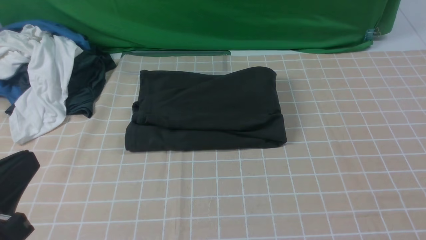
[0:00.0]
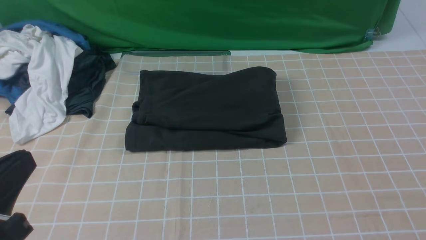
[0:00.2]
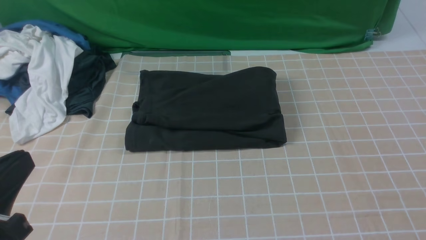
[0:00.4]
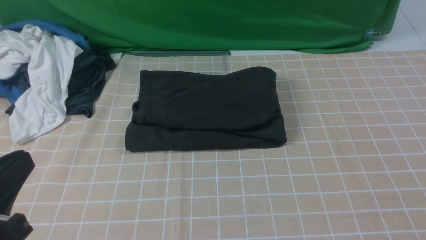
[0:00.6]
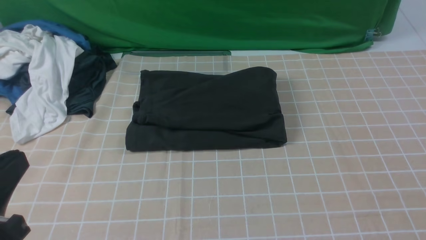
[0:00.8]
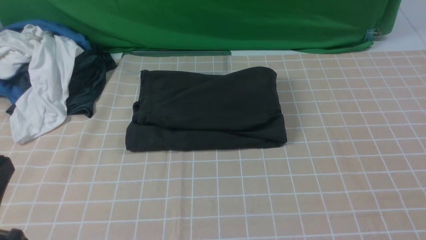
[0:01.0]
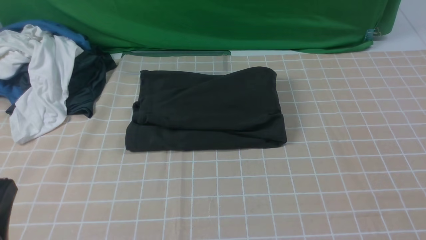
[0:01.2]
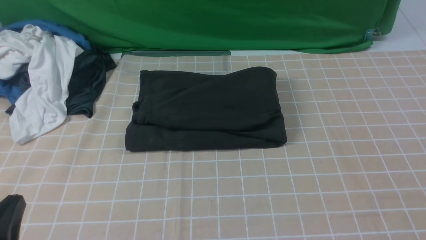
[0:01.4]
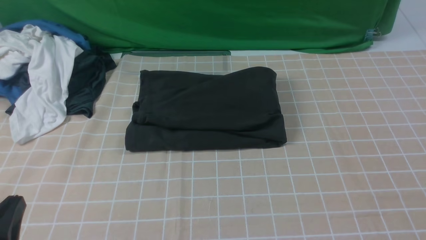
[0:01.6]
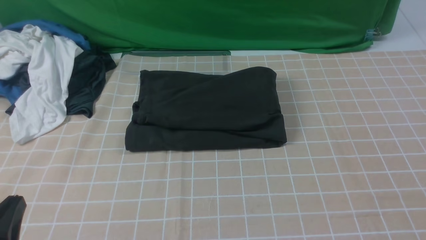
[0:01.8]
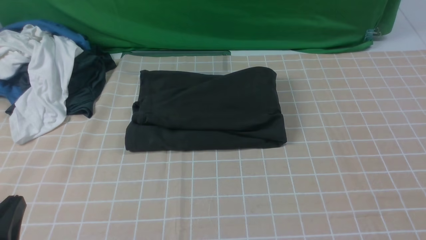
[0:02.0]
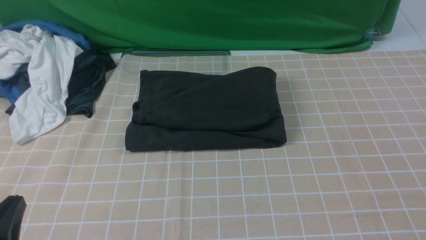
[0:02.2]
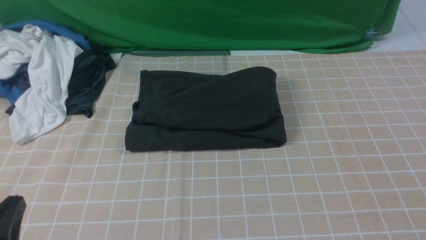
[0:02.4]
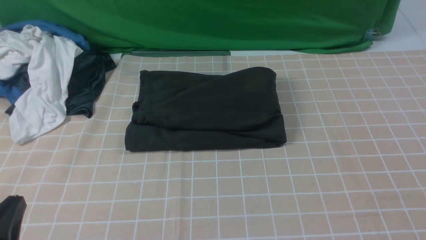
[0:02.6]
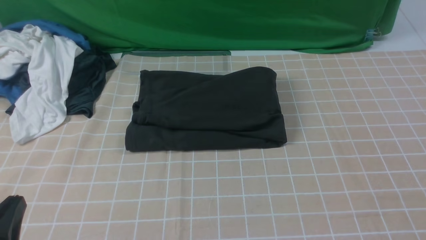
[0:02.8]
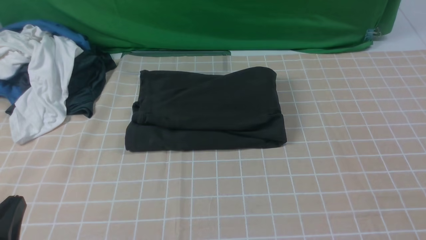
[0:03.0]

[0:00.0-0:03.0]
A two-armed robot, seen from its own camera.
0:00.0 to 0:01.6: The left gripper shifts some 10 cm downward.
